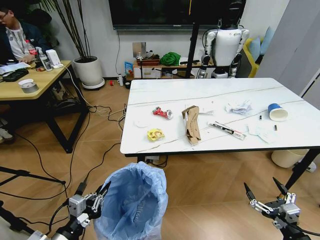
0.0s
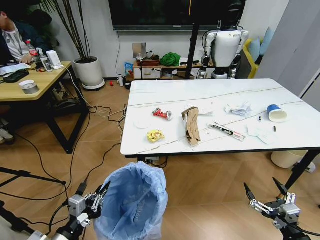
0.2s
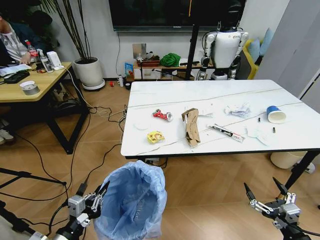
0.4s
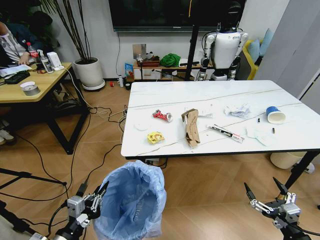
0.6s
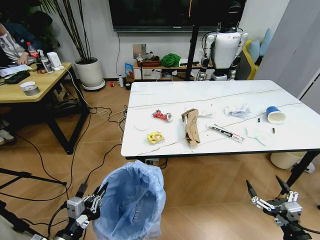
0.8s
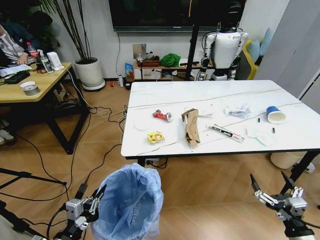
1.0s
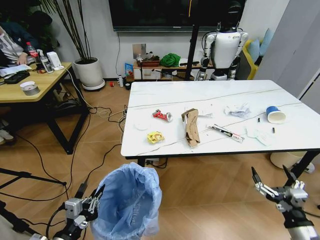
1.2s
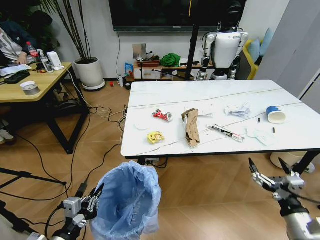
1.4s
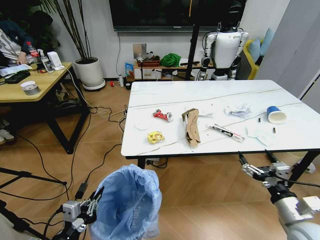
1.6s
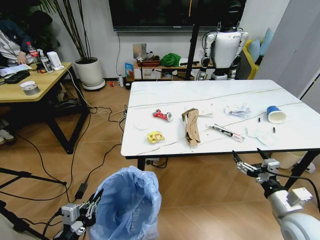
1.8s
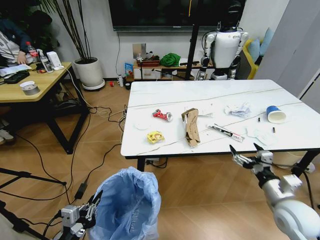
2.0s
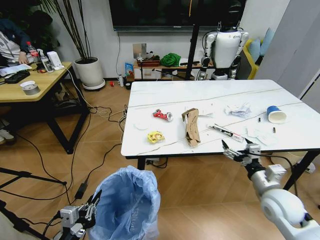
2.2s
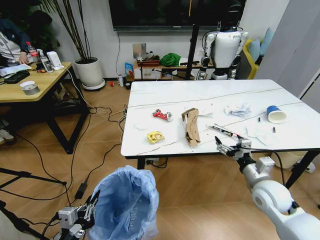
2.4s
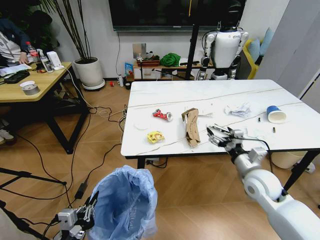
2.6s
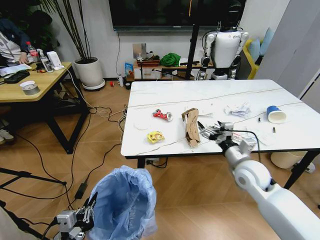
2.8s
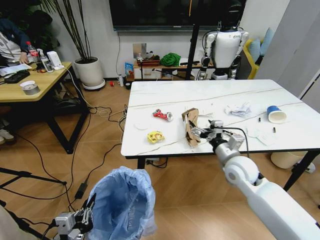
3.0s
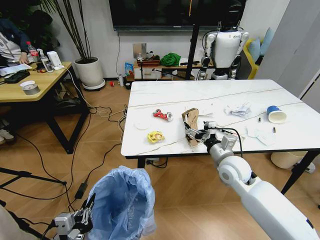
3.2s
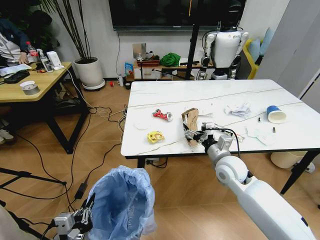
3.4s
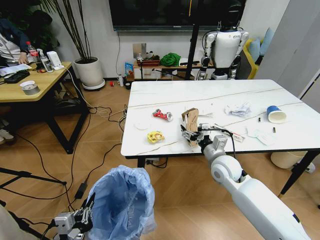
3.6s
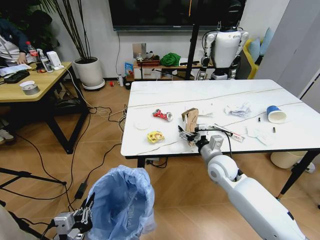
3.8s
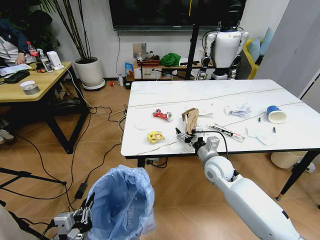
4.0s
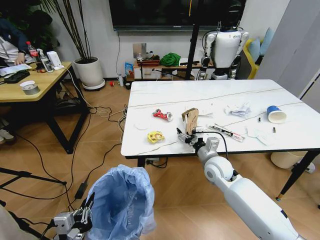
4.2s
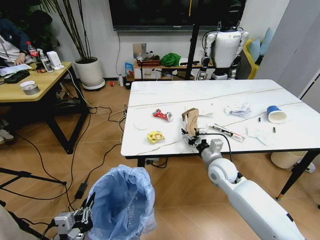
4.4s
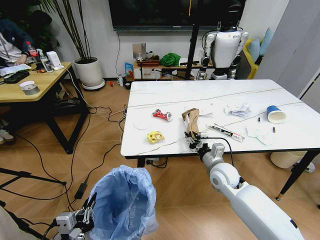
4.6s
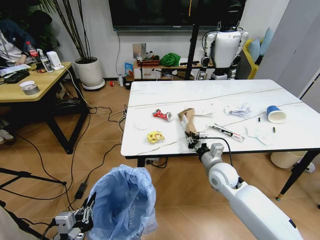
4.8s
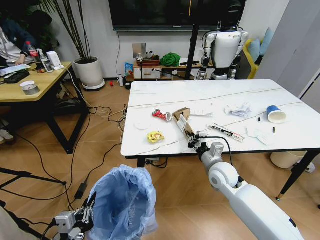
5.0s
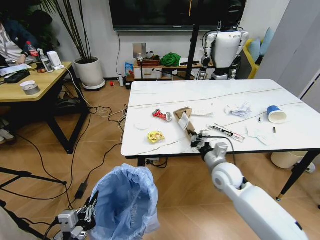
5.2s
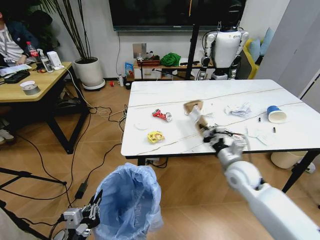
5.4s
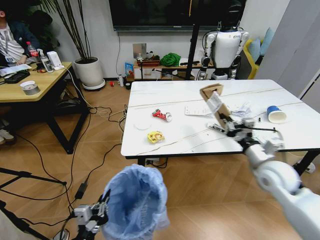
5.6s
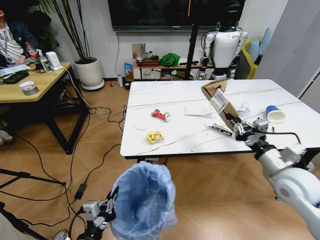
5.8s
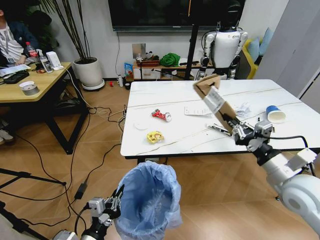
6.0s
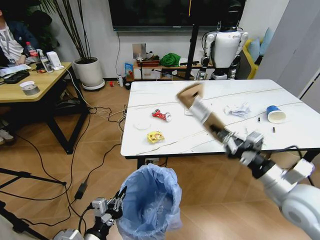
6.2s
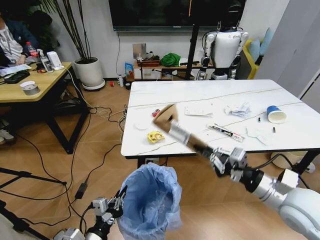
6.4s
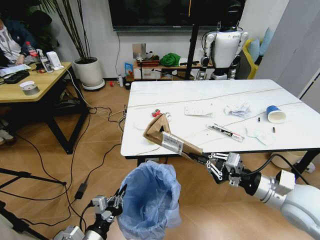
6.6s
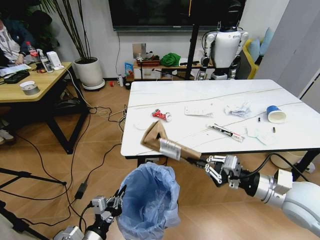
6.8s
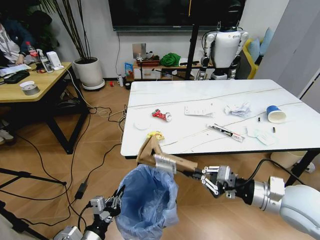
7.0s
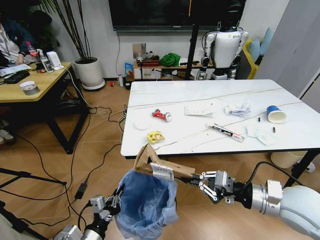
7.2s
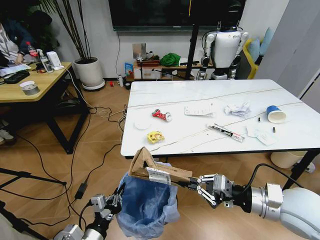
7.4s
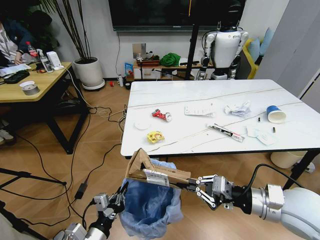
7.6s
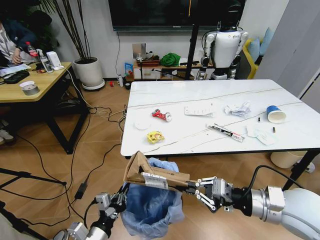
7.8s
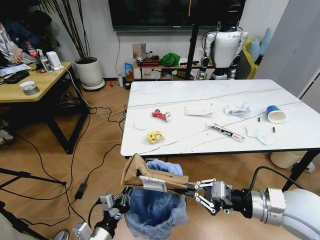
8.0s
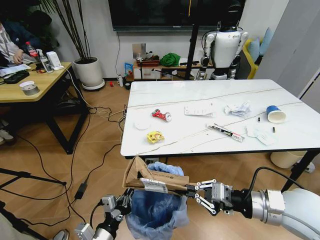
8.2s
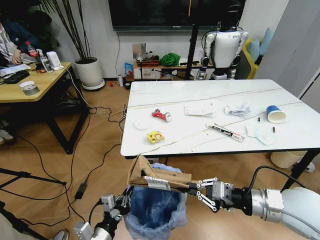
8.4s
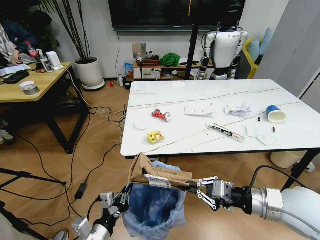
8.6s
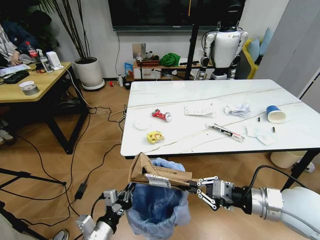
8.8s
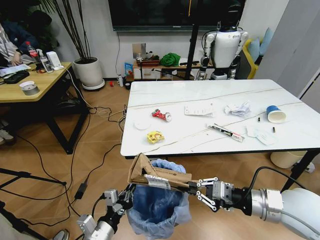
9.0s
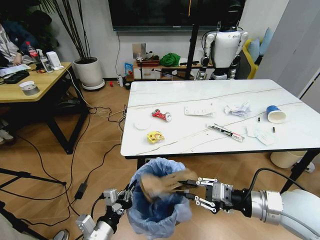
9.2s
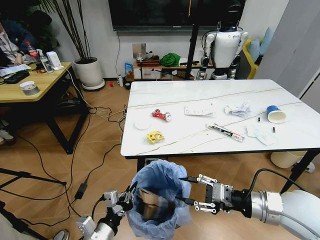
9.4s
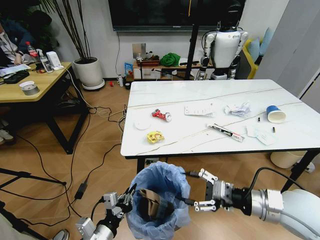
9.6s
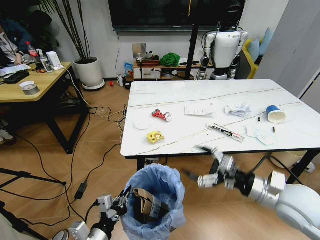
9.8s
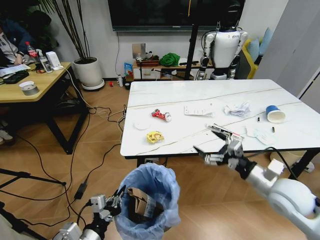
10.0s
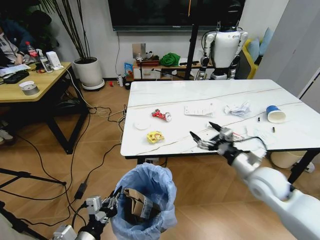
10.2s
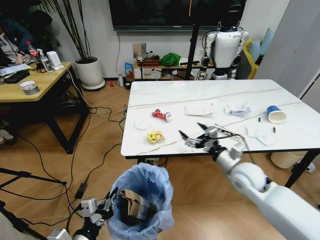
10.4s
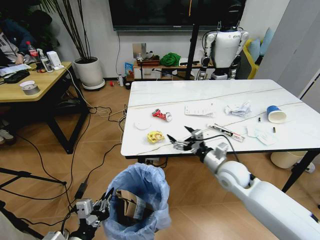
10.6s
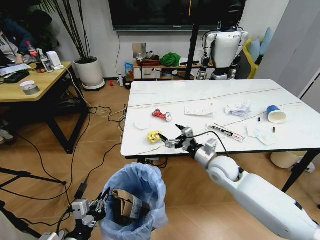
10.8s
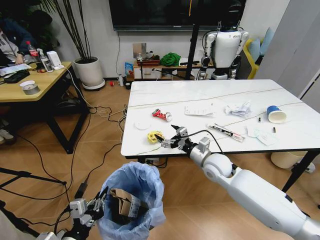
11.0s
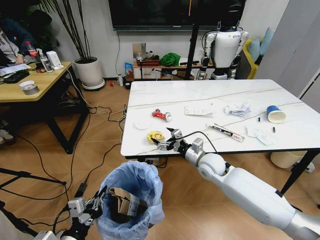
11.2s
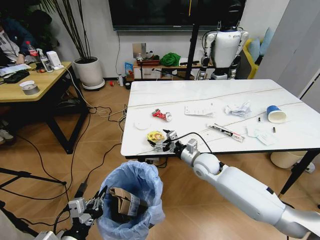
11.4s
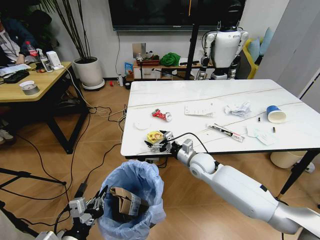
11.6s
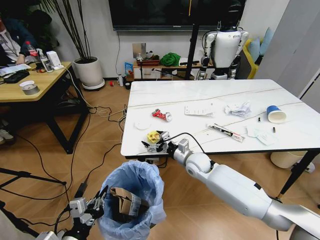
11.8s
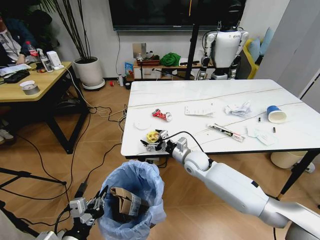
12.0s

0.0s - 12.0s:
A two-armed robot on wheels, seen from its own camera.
Task of the whole recording: Pick up the trash bin and place the trash from the table into it.
0.0s - 1.6s: The right gripper shifts approximately 10 cm forward and upward.
1.6s - 3.0s: The right gripper goes about 20 cm forward and to the left.
3.0s - 4.4s: The right gripper heads downward, covering some 5 cm.
4.4s - 6.0s: The left gripper shifts by some 5 cm. Meanwhile the right gripper heads backward, upward and to the right, covering roughly 20 cm, and closes its fingers.
7.6s - 9.0s: The grippers stay close to where they were, moving slightly.
9.0s - 10.4s: The left gripper moves roughly 5 cm, while the right gripper is displaced forward and downward by some 10 cm, and opens.
10.4s - 12.0s: The right gripper shifts approximately 20 cm to the left, forward and downward.

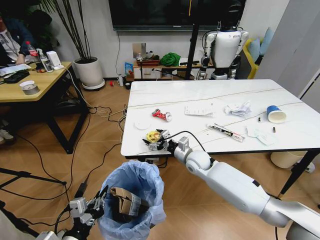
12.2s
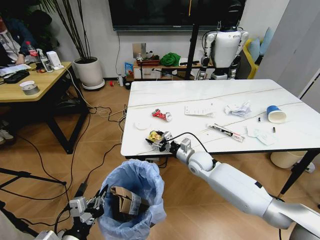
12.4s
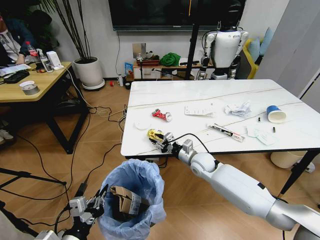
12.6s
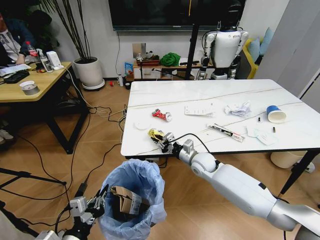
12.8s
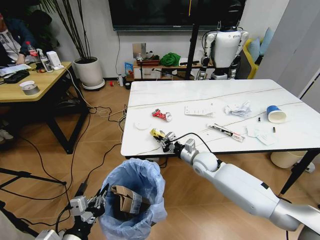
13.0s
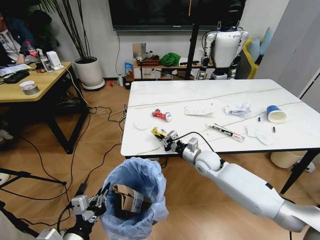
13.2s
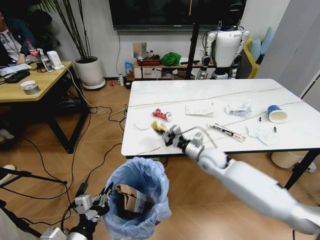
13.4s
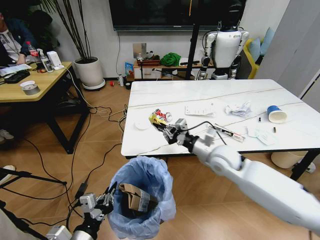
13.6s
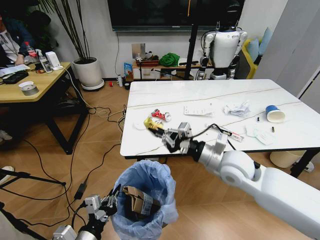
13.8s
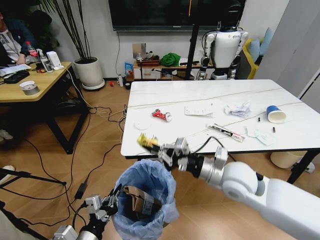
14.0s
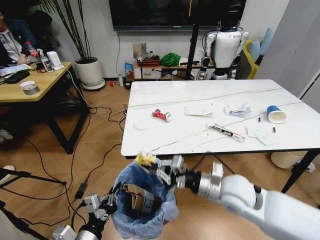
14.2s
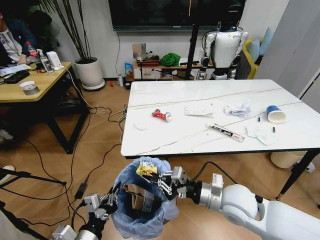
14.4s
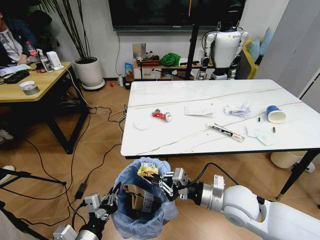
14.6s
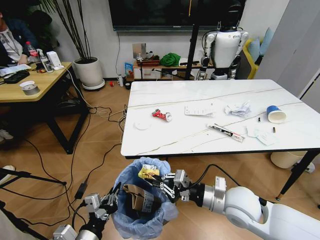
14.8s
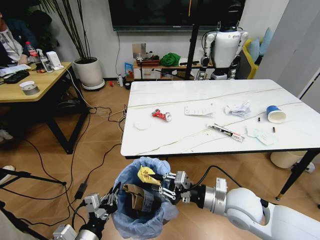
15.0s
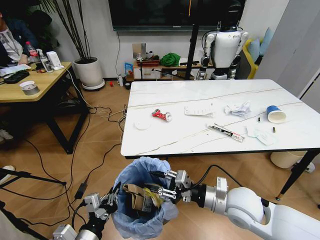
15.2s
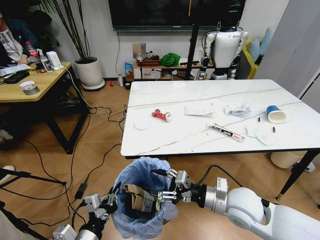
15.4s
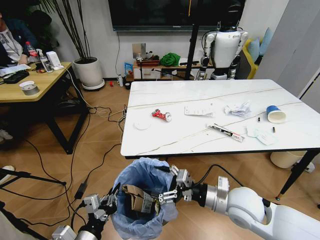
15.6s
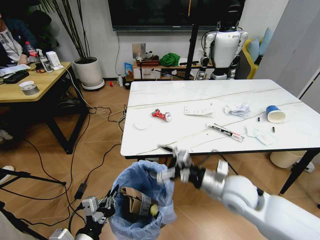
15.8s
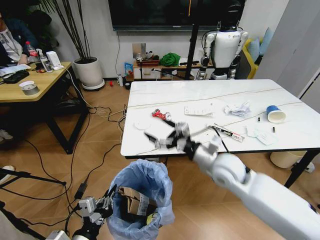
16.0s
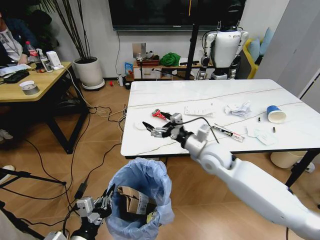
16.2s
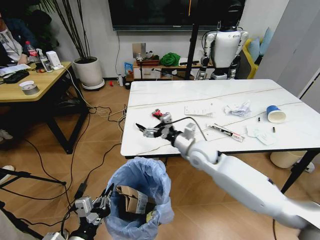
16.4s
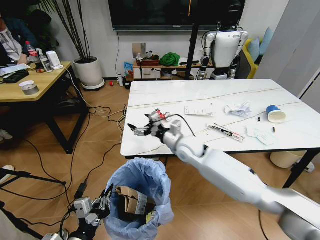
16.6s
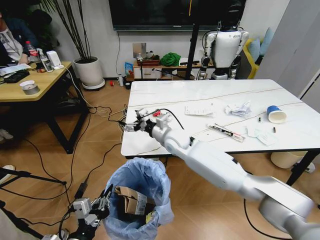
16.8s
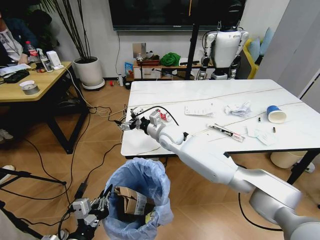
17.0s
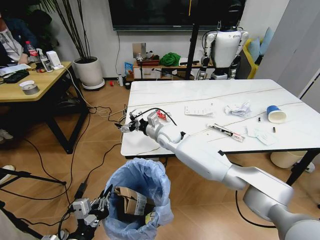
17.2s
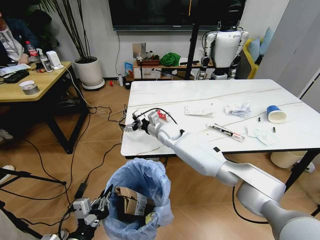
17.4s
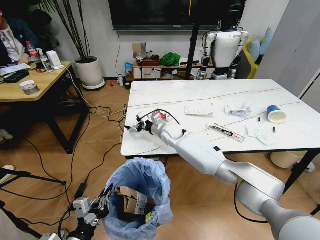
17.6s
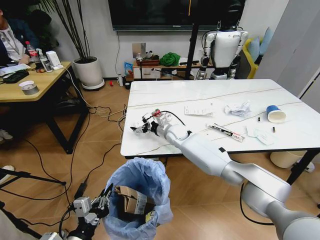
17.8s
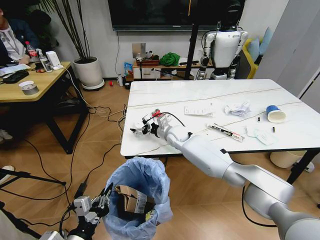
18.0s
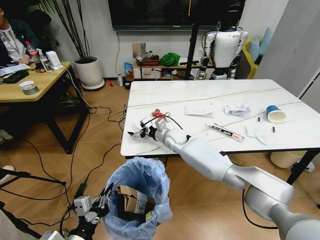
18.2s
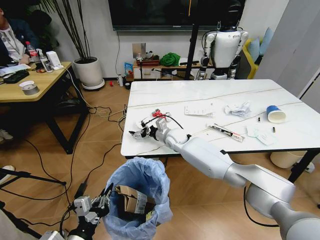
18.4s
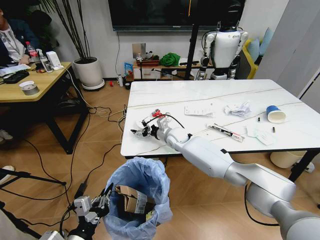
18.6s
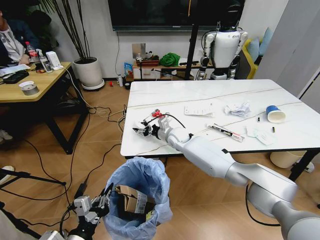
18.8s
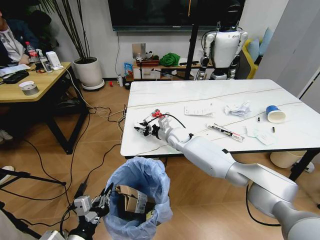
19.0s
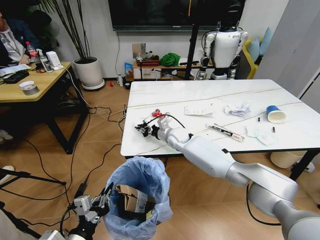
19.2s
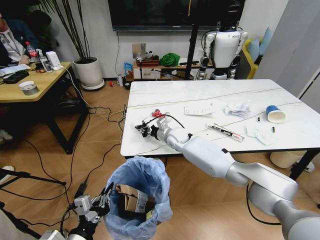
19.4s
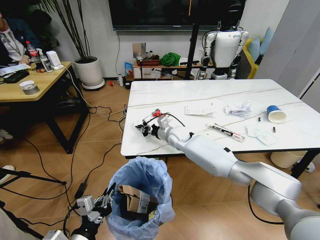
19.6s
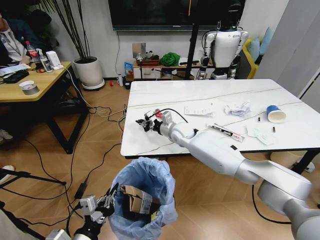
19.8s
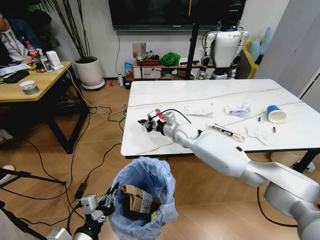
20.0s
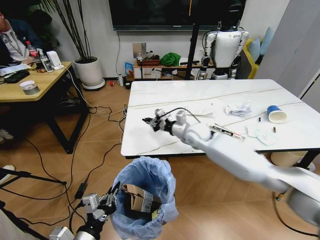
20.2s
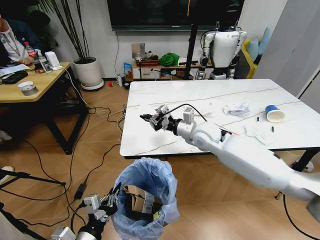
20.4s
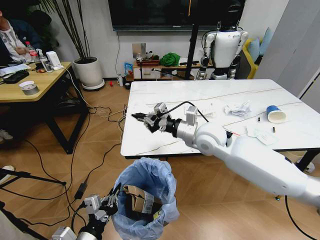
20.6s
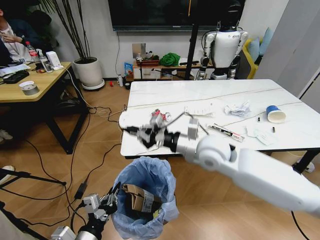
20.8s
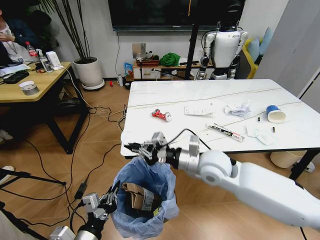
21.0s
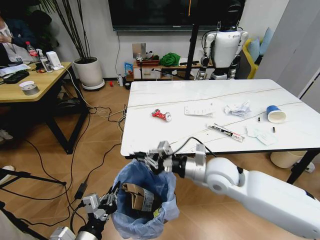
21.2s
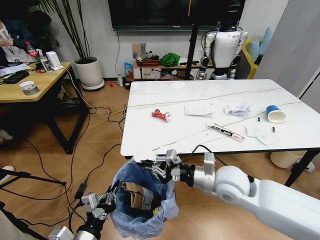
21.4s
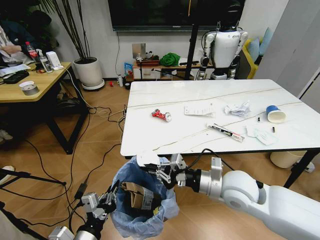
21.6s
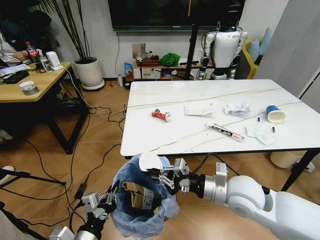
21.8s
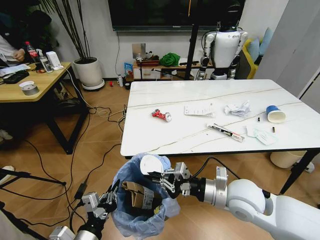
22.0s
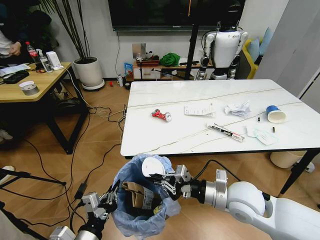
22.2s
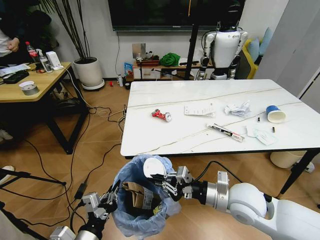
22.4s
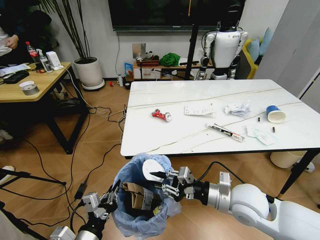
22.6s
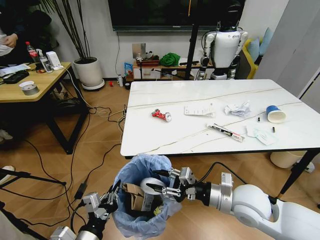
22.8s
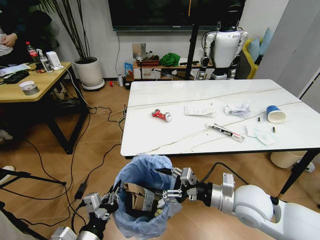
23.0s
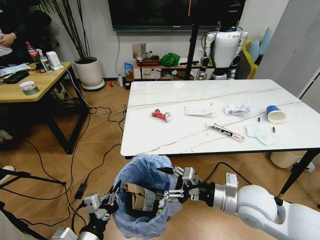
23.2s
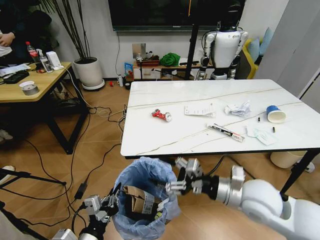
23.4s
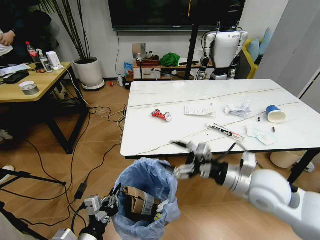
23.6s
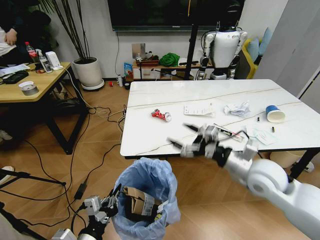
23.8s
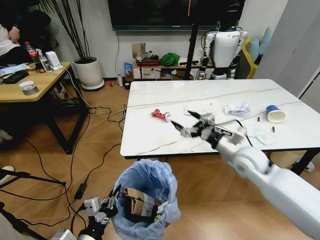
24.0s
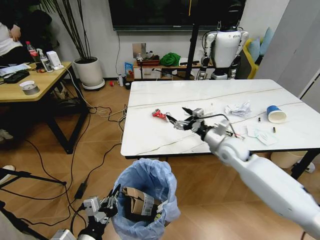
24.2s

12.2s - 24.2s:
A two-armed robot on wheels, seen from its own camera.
Task of the whole recording: Pick up the trash bin and place the trash from the table into it.
12.2s - 13.8s: The right gripper goes some 20 cm upward, backward and to the right, and closes its fingers.
13.8s - 15.2s: The right gripper travels backward and downward by about 10 cm, and opens.
15.2s - 16.6s: The right gripper travels forward and to the left by some 25 cm, and opens up.
16.6s - 18.2s: The right gripper heads forward and downward, covering roughly 10 cm.
18.2s - 19.8s: The right gripper closes.
19.8s - 21.2s: The right gripper goes approximately 20 cm backward.
21.2s - 22.6s: The right gripper shifts roughly 10 cm backward and to the right.
22.6s - 24.2s: The right gripper goes roughly 20 cm forward, and opens its fingers.
